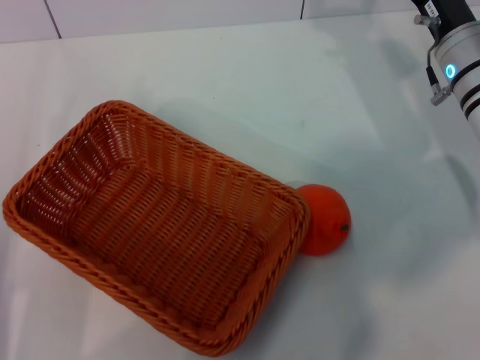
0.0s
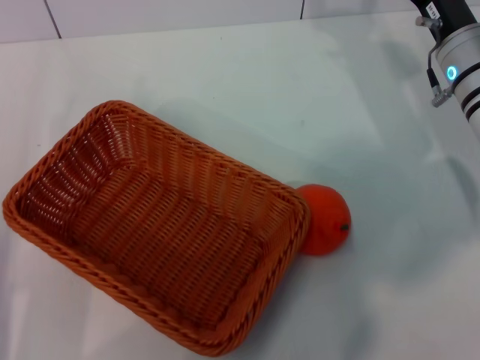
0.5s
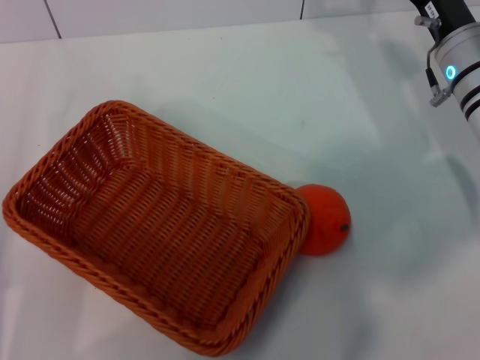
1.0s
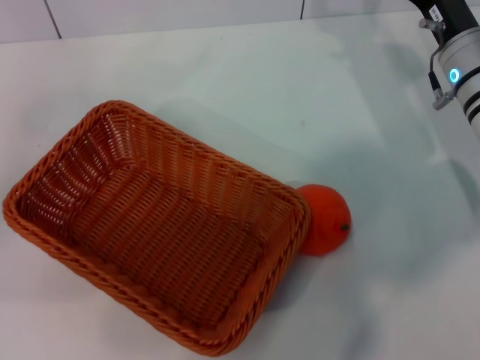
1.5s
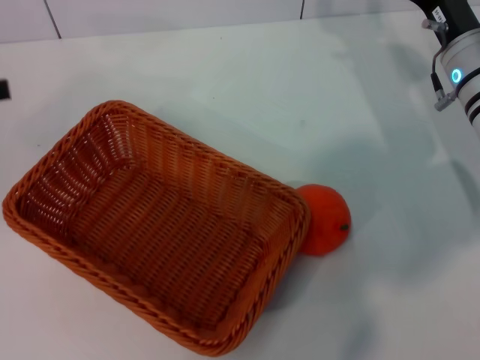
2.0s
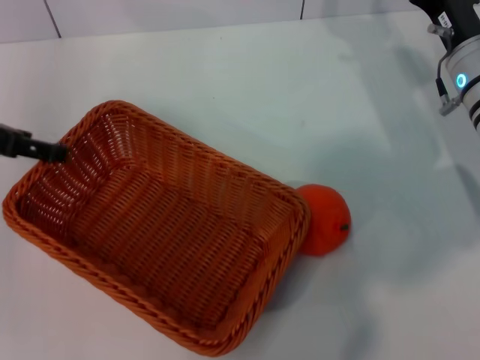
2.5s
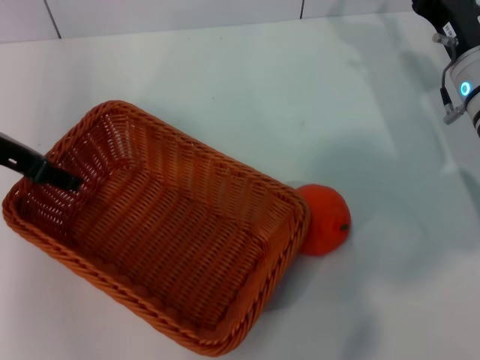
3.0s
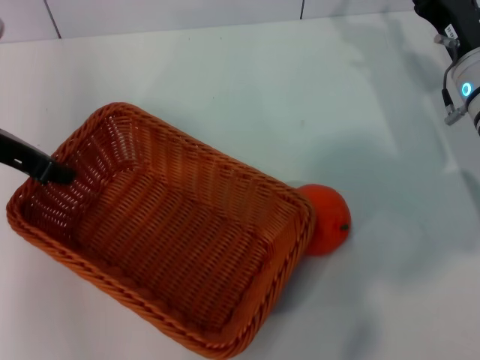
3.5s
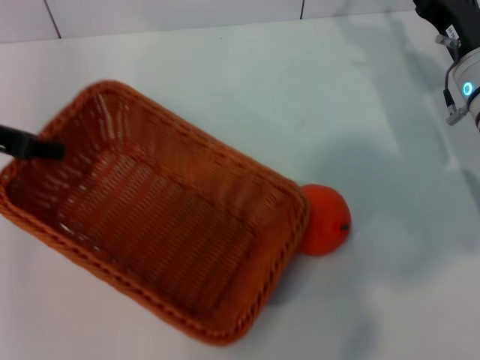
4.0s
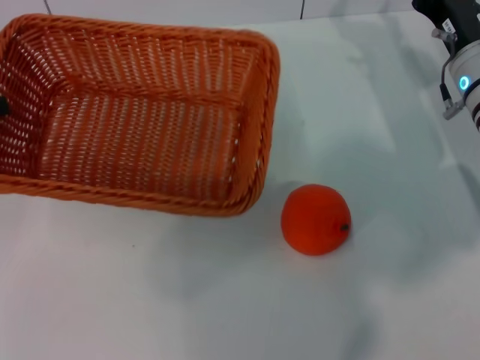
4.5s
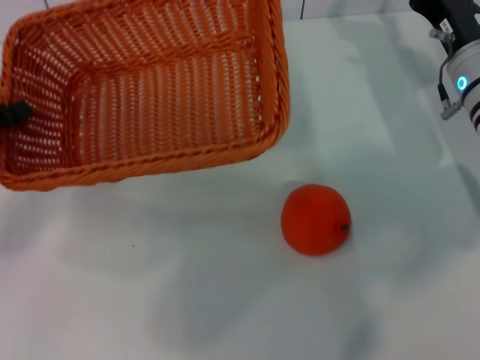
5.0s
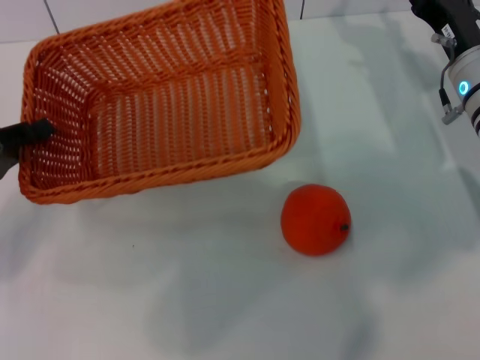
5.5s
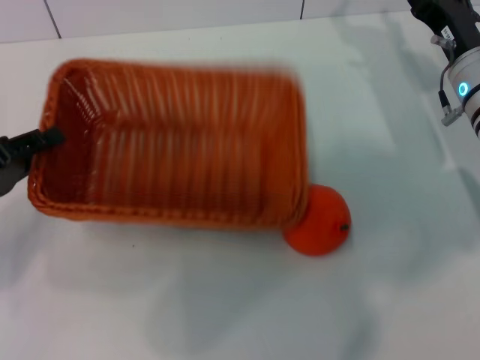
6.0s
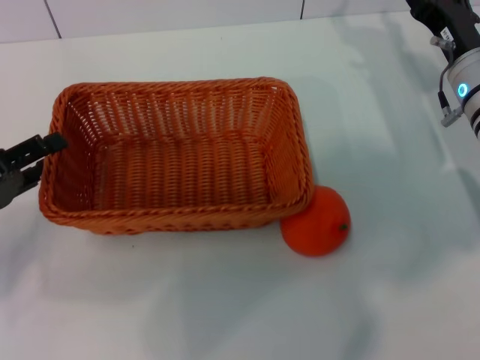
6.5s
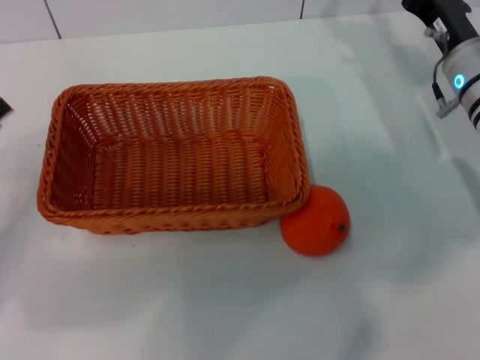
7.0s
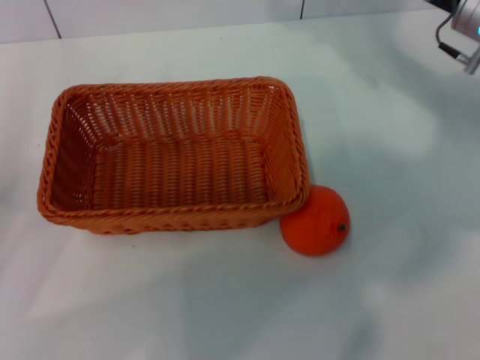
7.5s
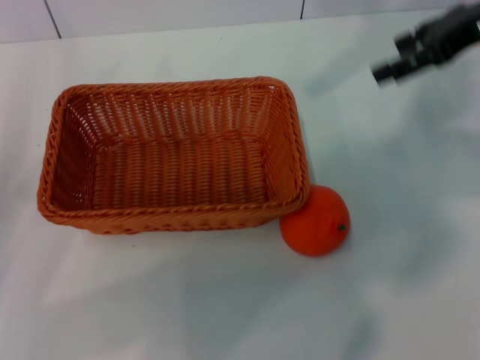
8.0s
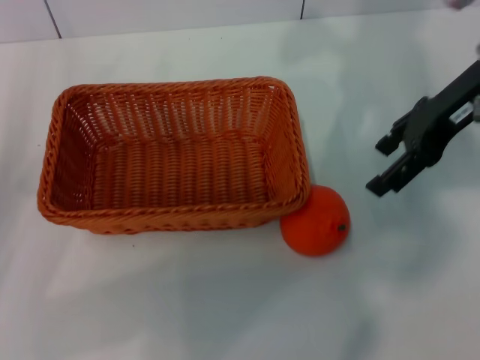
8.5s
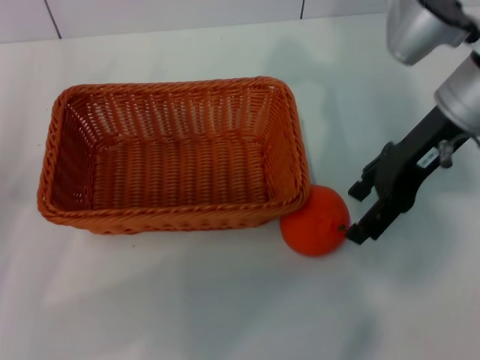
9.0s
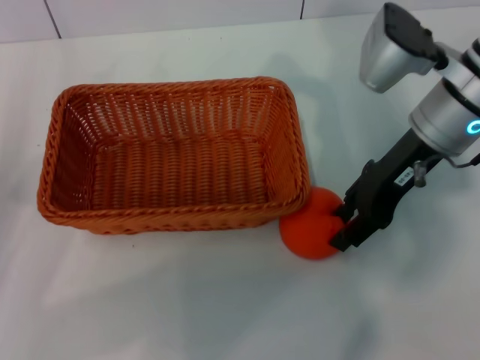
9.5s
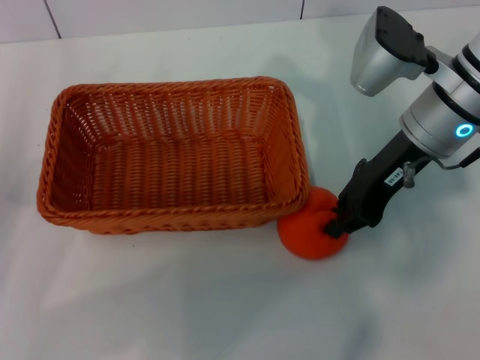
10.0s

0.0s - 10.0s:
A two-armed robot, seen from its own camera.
Task of the whole recording: the left gripper pick up the yellow basket and place it horizontally in the middle of the table, the right gripper pick up the orange and place it into the yellow basket.
Step, 0.0s - 3.5s: Pick up the light basket with the left gripper.
Step, 4.0s - 6.5s: Place the light basket in the center of view with the left gripper.
0.0s - 2.0s: The left gripper shifts approximately 20 cm upward, forward and to the left.
2.0s - 4.0s: The left gripper moves to the right, approximately 10 cm, and closes.
4.0s - 6.0s: The left gripper is displaced downward and backward by some 15 cm.
6.0s - 8.0s: The right gripper heads upward, covering approximately 15 cm. Meanwhile the left gripper opens up.
8.0s - 10.0s: The right gripper is displaced to the left and downward by roughly 15 cm, and closes its fingers.

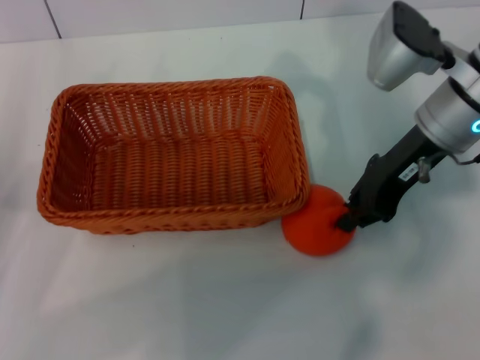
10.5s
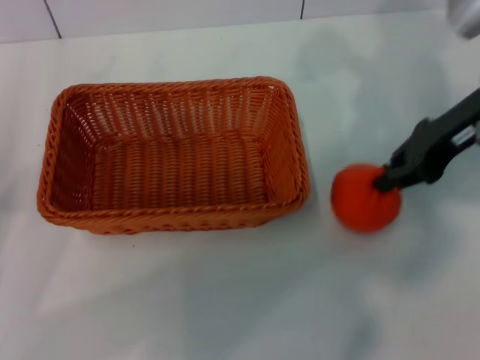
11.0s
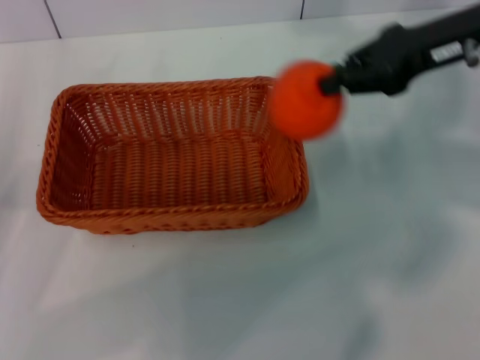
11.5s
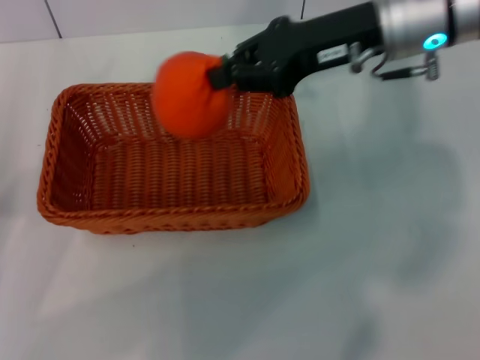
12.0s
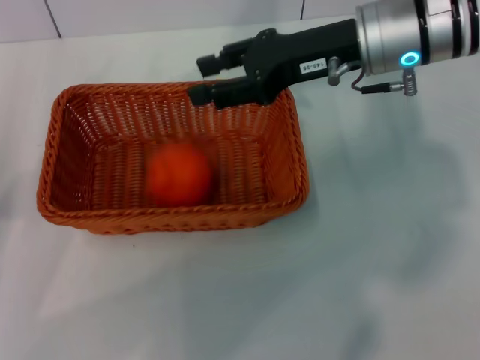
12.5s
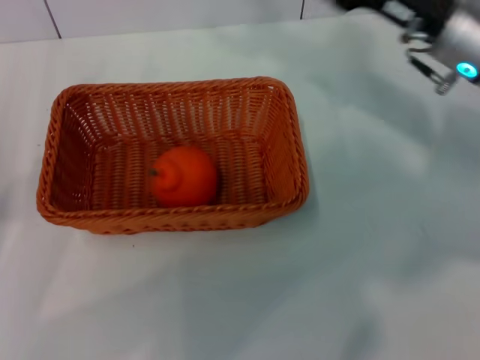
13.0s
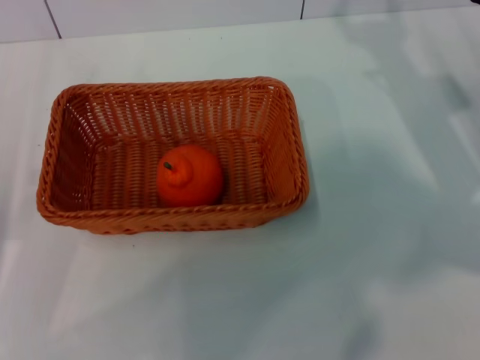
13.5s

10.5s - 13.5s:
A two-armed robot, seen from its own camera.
Task of the whole recording: the left gripper pick up the yellow basket and place it horizontally in the middle of the table, the right gripper pick up the orange and place it into the yellow basket.
Step, 11.5s - 12.0s: Place the orange into the light basket with the right gripper.
10.5s - 12.0s: The right gripper is displaced upward by roughly 5 cm.
12.0s - 13.5s: The right gripper shifts roughly 15 cm downward, to the right and backward, and opens its fingers.
